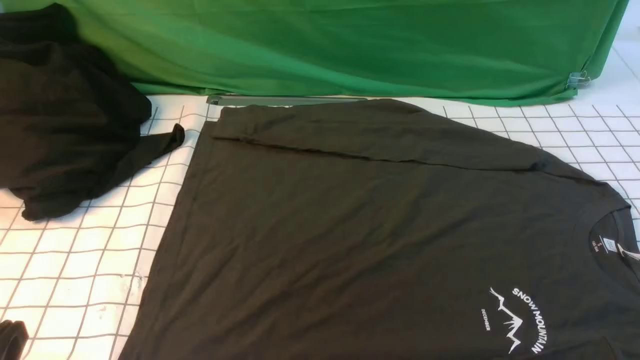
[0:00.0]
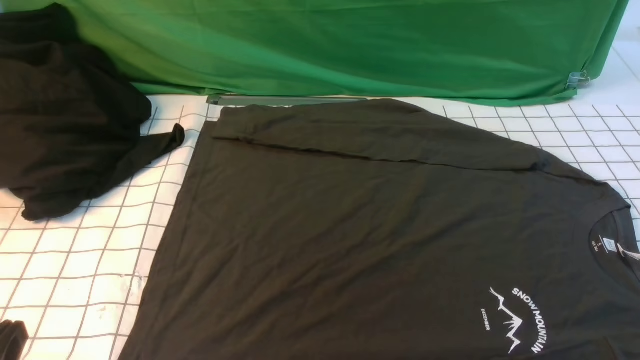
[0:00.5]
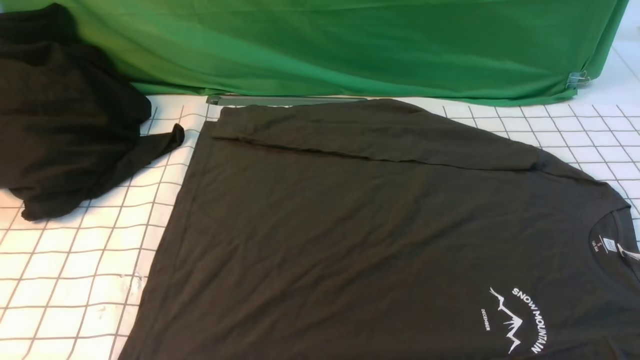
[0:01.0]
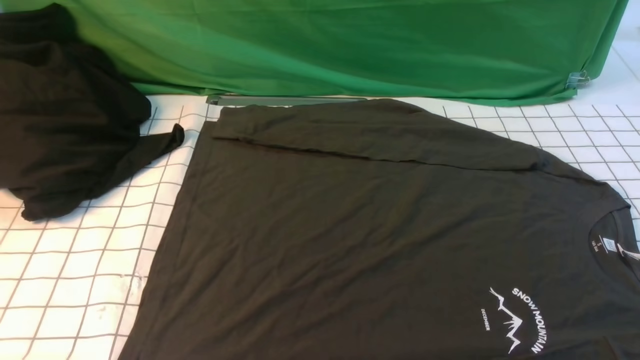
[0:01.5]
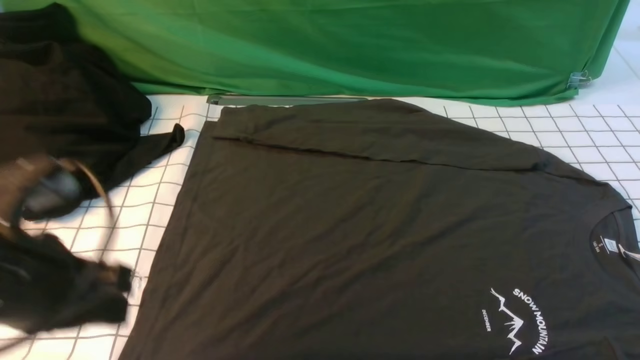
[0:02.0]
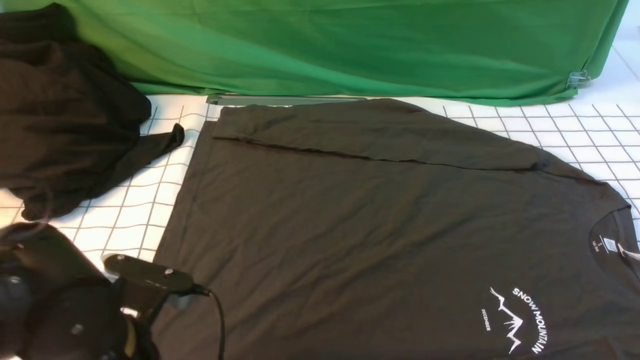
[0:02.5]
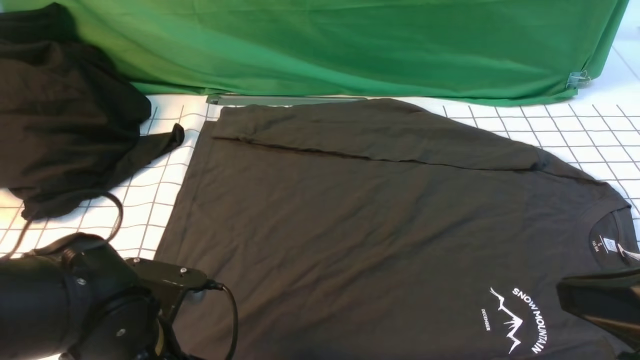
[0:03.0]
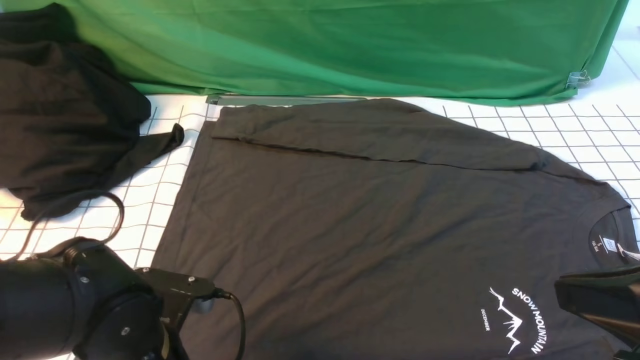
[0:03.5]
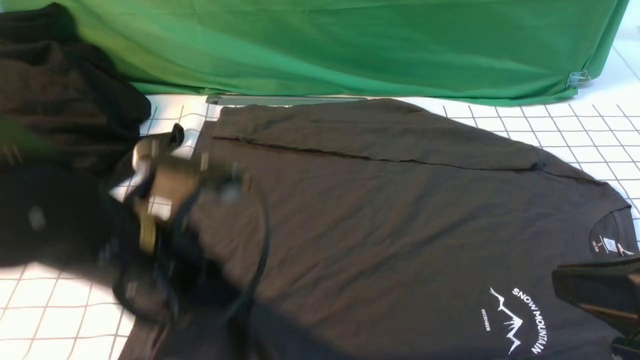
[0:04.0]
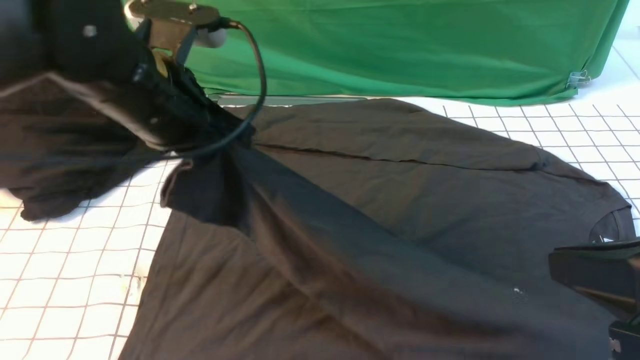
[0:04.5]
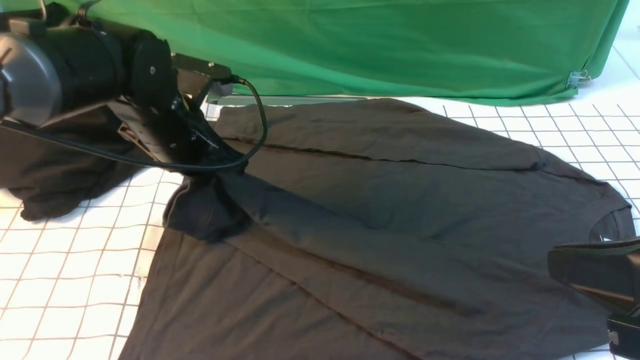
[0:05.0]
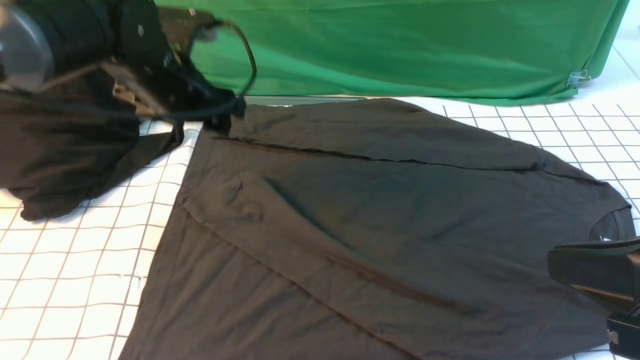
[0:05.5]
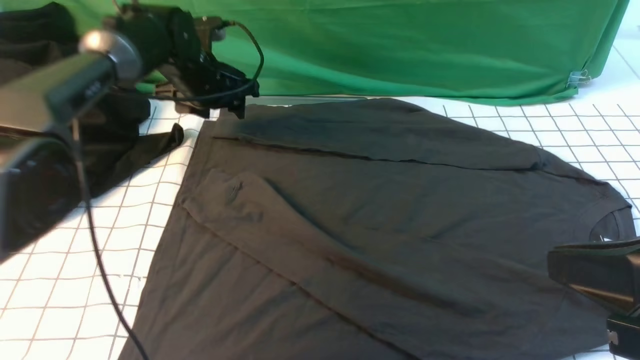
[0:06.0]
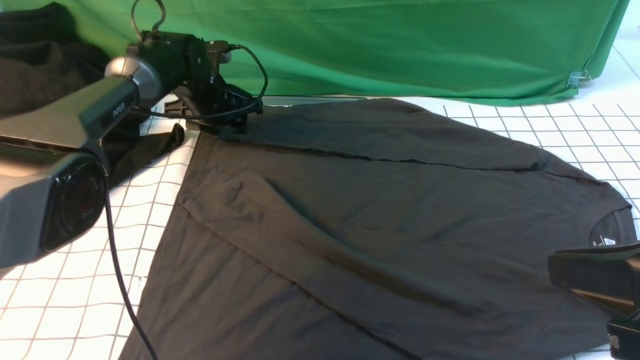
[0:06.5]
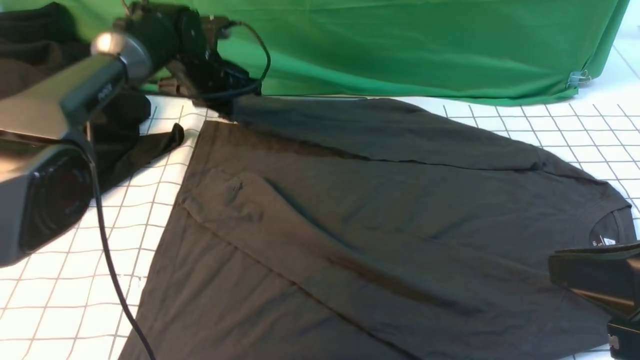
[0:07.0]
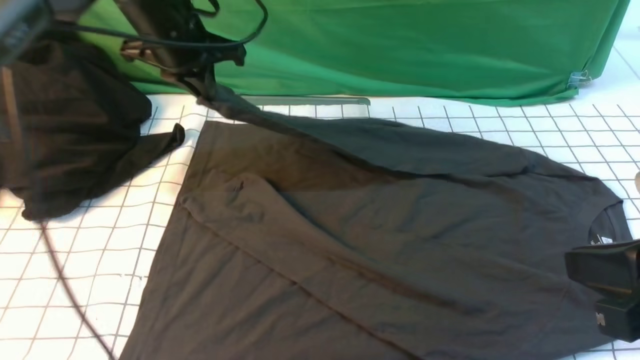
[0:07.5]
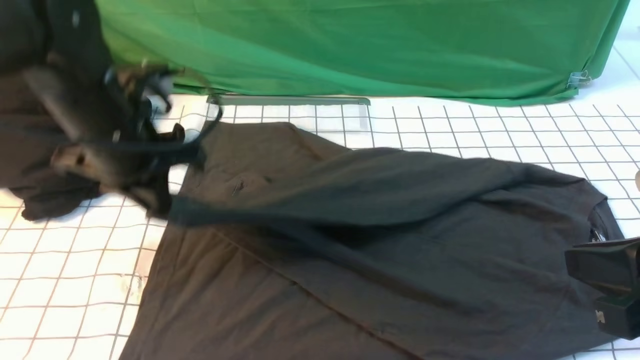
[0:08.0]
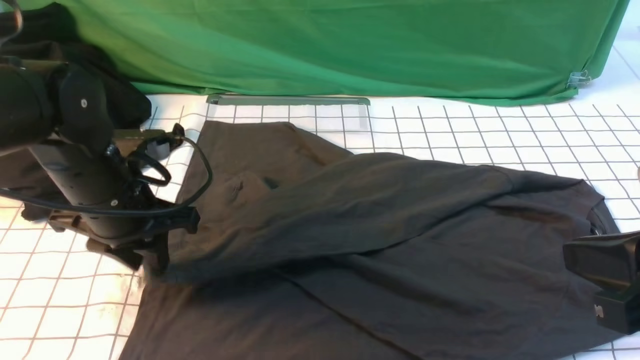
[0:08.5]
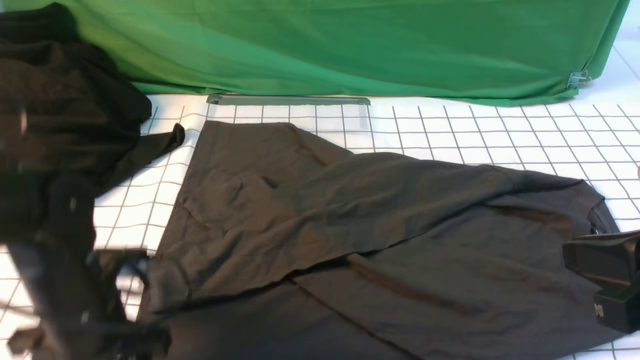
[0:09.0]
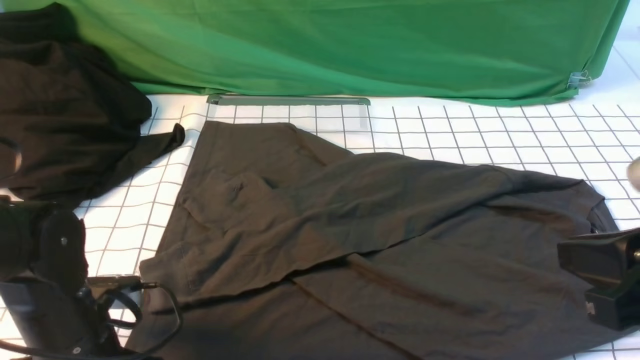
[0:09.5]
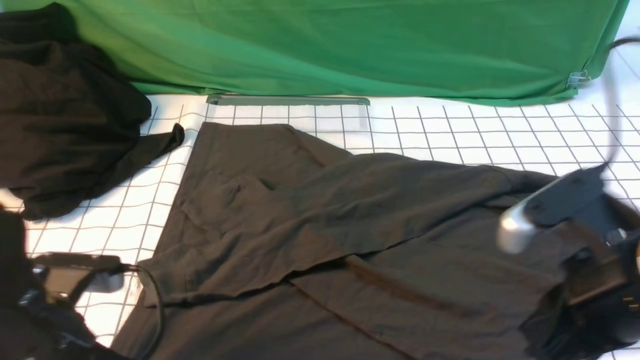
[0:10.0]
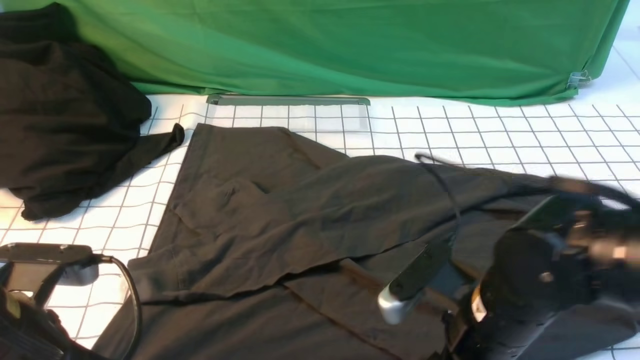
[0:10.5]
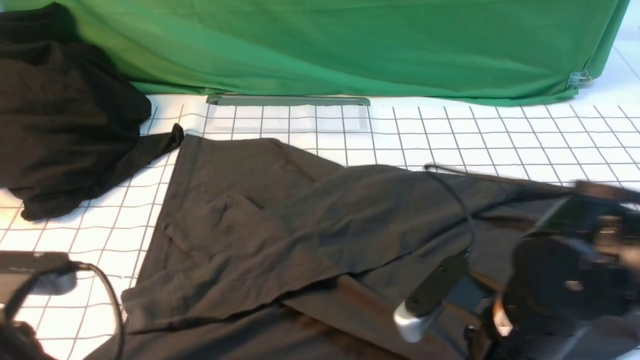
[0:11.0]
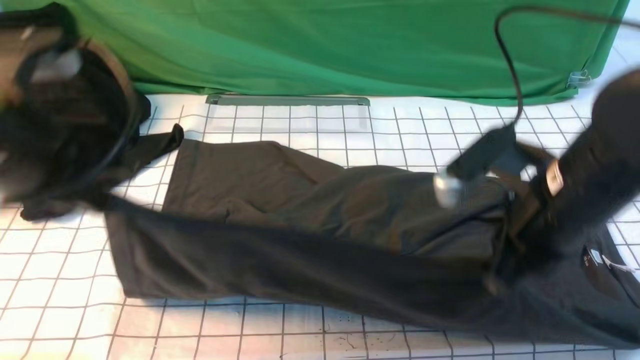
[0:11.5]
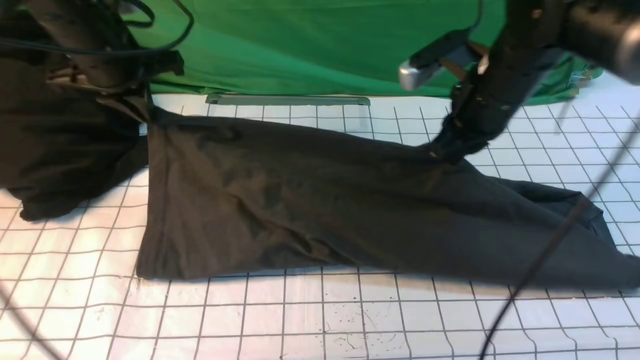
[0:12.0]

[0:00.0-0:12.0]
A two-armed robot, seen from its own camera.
Step, 0:00.0 to 0:03.5: use the left arm to clamp the cuff closest to it.
Step, 0:04.0 to 0:05.0: use the left arm to drag and place the cuff at the centered position on the left edge of the fabric.
Step, 0:05.5 to 0:06.5: use the left arm to clamp the cuff farthest from it.
Step, 0:07.0 to 0:08.5: use the left arm to drag and drop the cuff onto the cuff closest to the left arm.
Step, 0:09.0 to 0:11.0: use both arms simultaneously to clamp the lower edge of the clothing fabric.
0:00.0 to 0:02.0: The left gripper goes some 15 cm forward and upward.
0:02.0 to 0:04.0: The left gripper travels to the right by roughly 10 cm, reaches some 10 cm downward, then returns, and opens and closes again, while the right gripper goes some 15 cm upward, to the left and forward, and closes its fingers.
0:04.0 to 0:06.0: The left gripper goes roughly 30 cm forward, and opens.
0:06.0 to 0:08.0: The left gripper travels backward by some 20 cm, and closes up.
0:08.0 to 0:10.0: The right gripper changes place by some 10 cm. The left gripper shifts approximately 15 cm backward, and opens and closes again.
0:10.0 to 0:12.0: The two grippers go about 25 cm forward. The right gripper opens, then closes once more.

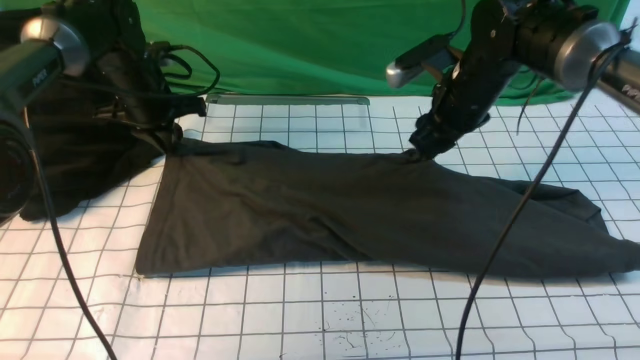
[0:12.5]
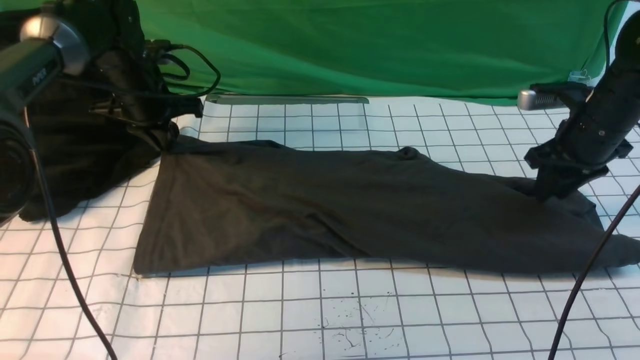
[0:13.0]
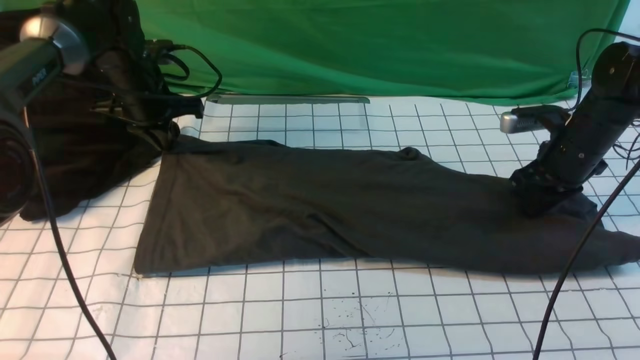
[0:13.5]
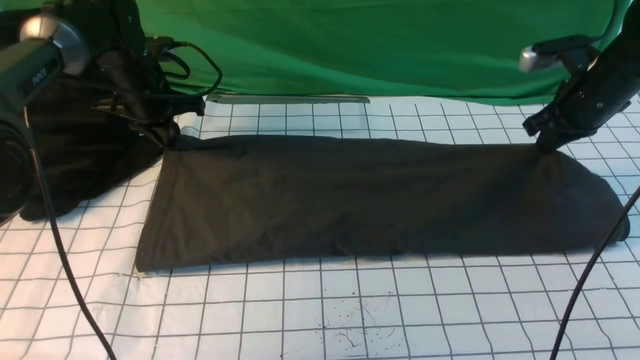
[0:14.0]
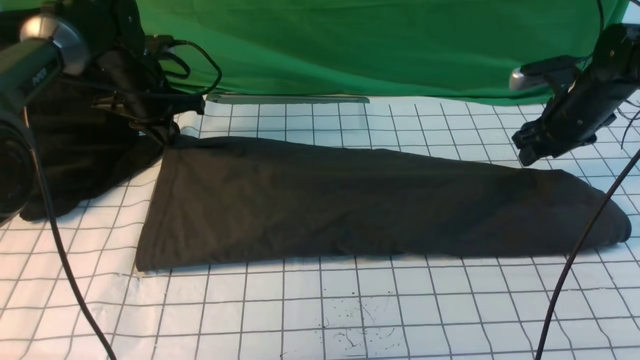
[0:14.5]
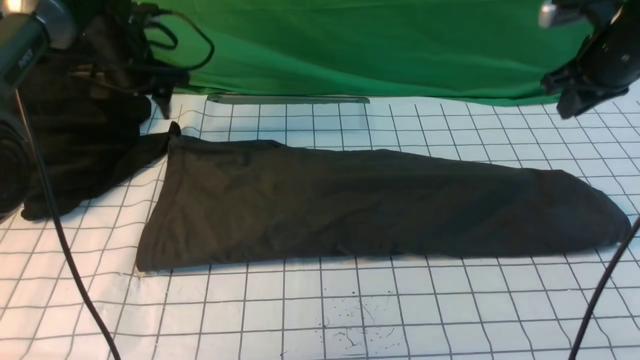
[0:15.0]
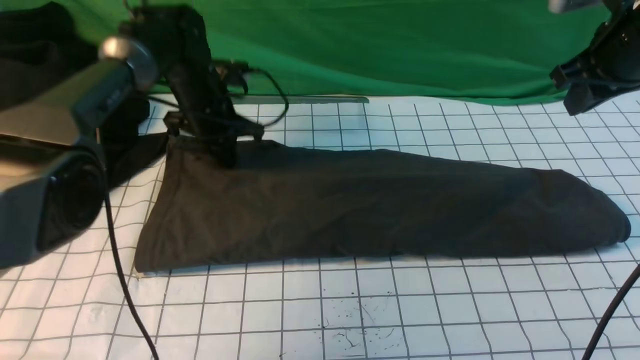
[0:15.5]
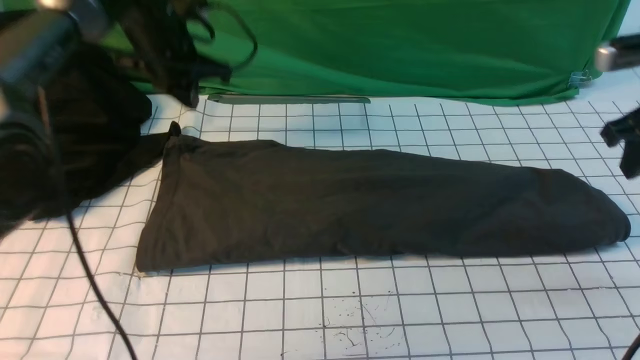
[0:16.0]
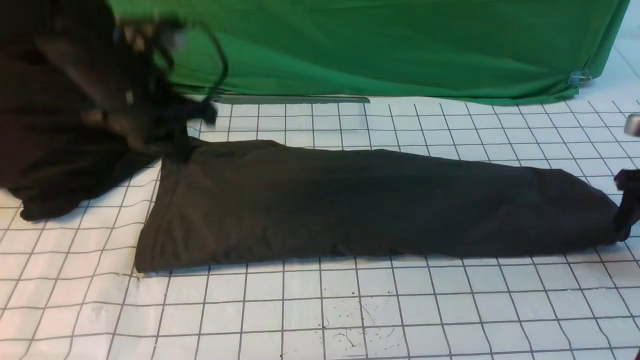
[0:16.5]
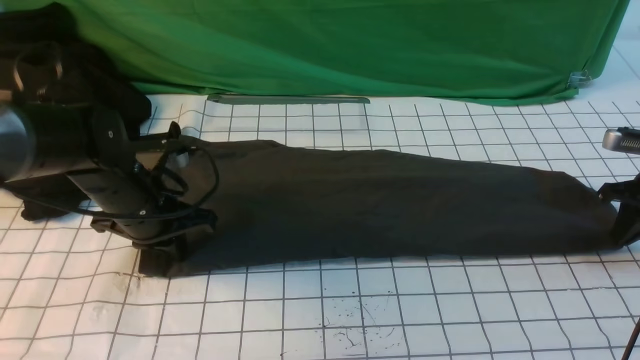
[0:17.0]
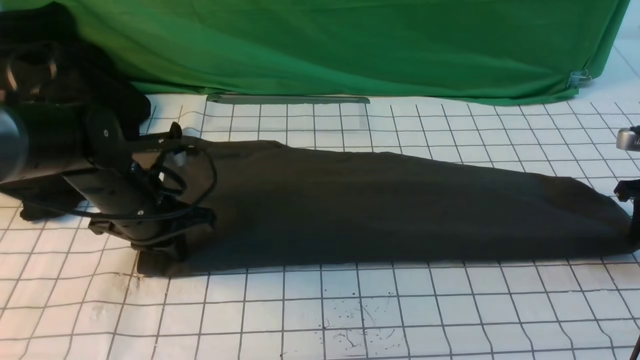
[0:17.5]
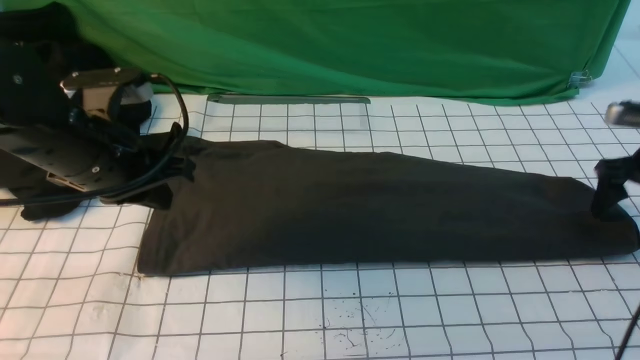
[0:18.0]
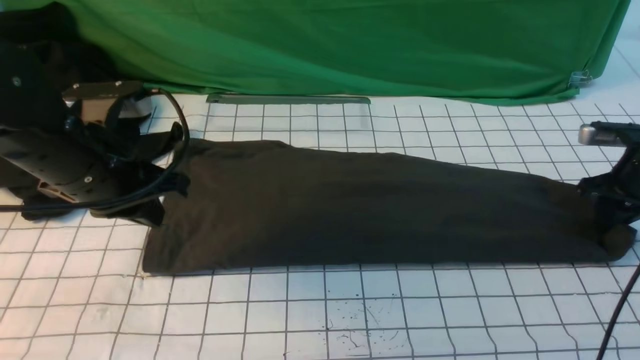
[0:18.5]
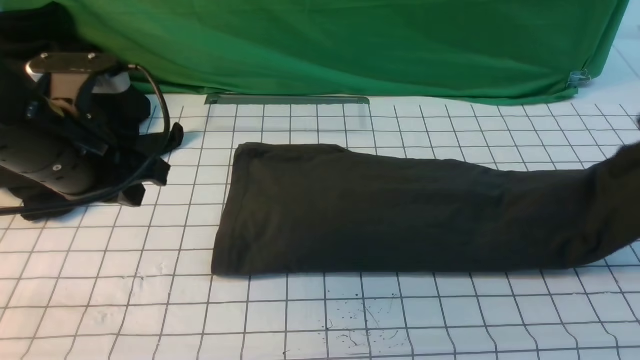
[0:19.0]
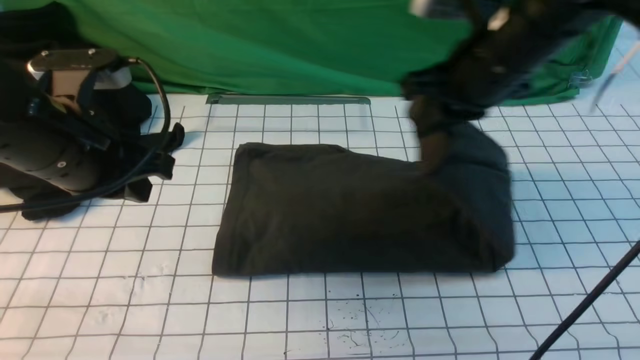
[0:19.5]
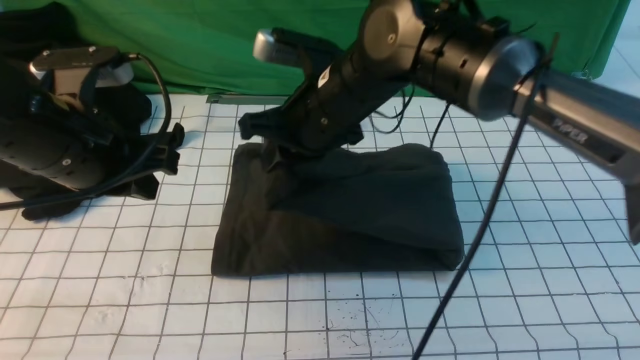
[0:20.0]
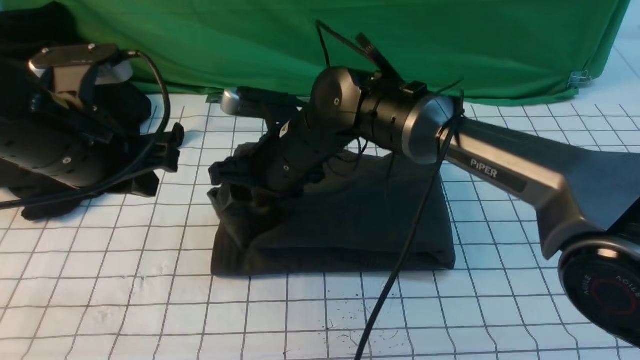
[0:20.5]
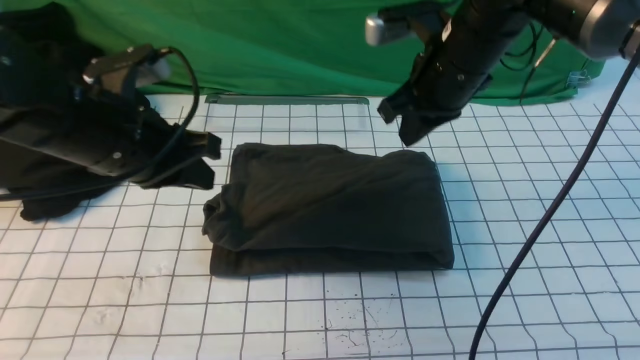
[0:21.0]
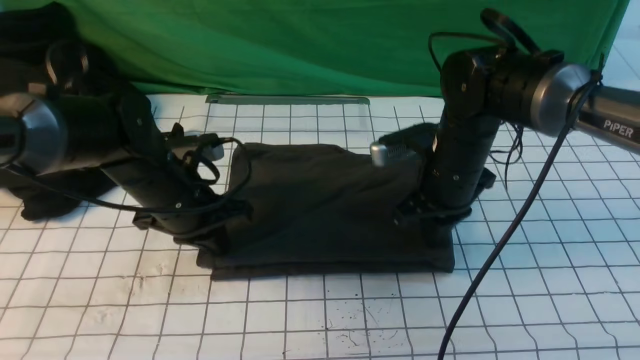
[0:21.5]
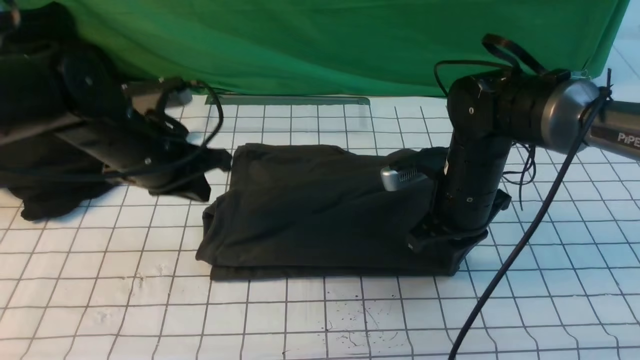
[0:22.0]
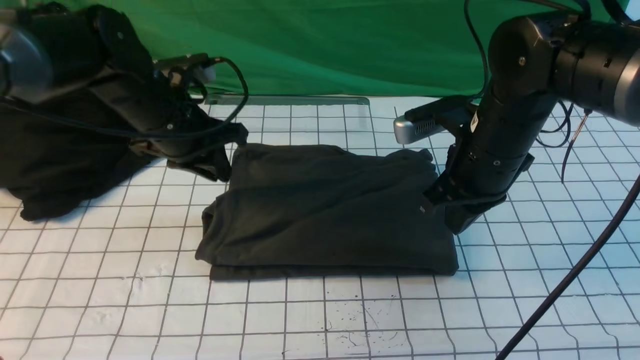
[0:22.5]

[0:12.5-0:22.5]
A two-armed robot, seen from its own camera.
Step, 0:12.5 to 0:14.5: use both arms to drag the lower edge of the fabric forward and fold it over the upper edge.
Step, 0:15.0 to 0:18.5: use the right arm to clamp the right edge of the fabric.
Step, 0:19.0 to 0:20.5: use the right arm to drag the right edge of the fabric to the left and folds it over the left edge.
0:12.5 to 0:14.5: The right gripper moves to the right, roughly 15 cm, and closes and opens again.
0:14.5 to 0:16.5: The right gripper goes roughly 15 cm to the right and backward, travels upward and back again, about 15 cm each way, and closes and opens again. Meanwhile the left gripper is displaced backward and upward by roughly 15 cm, and opens, then closes again.
0:16.5 to 0:18.5: The left gripper shifts approximately 10 cm backward, and goes downward and returns, some 10 cm each way; the right gripper closes.
0:18.5 to 0:20.5: The right gripper is displaced to the left by some 40 cm, and opens up.
0:20.5 to 0:22.5: The left gripper is displaced forward and downward by some 15 cm, and opens its fingers. The right gripper heads to the right, covering about 15 cm, and closes up.
